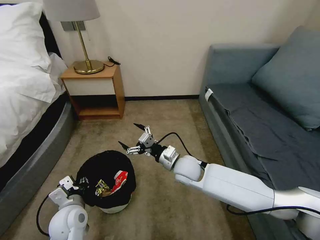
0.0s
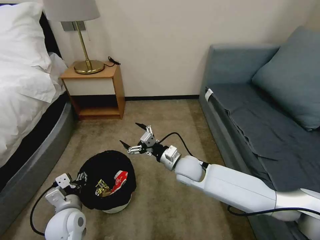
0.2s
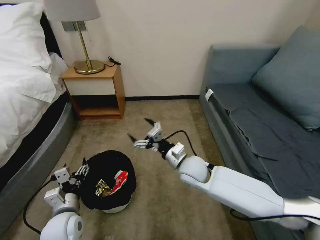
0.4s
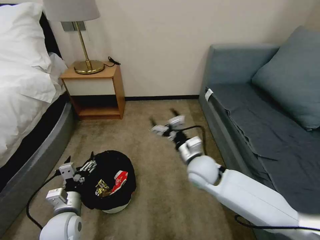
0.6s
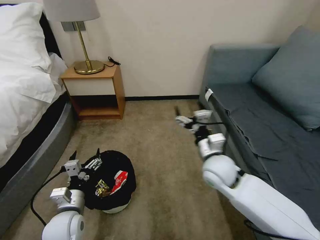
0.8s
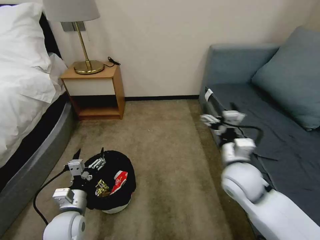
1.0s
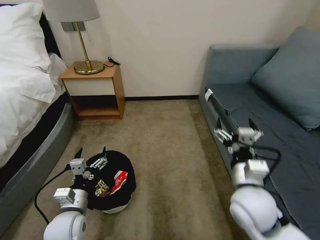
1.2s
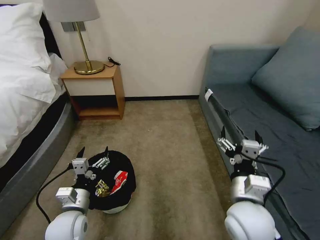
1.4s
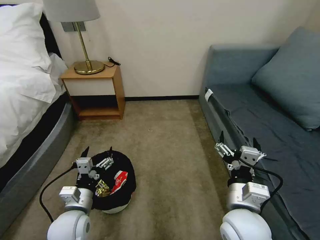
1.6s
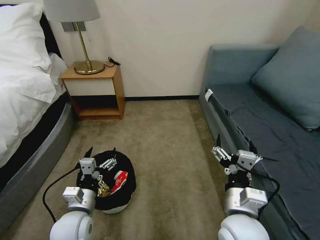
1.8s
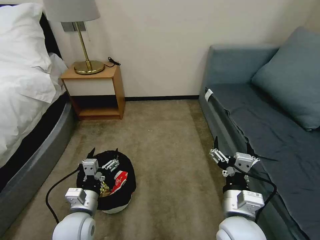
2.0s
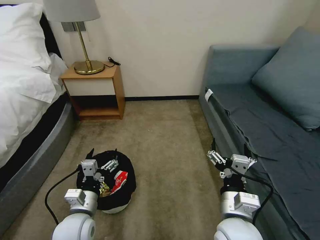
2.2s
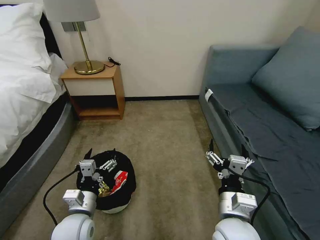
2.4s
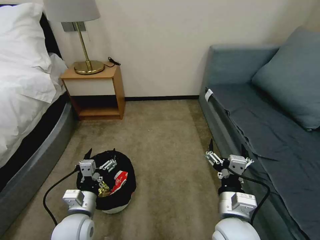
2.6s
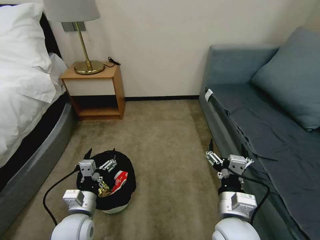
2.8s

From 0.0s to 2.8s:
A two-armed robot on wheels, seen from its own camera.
Task of the whole recording: Pick up the trash bin, then pick up the garbage on the floor and place it into the trash bin.
From 0.0s to 1.4s: The left gripper opens up; the right gripper goes approximately 20 cm backward, to the right and upward.
From 1.4s to 2.8s: There are only small adjustments of the grippers.

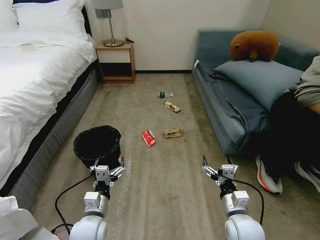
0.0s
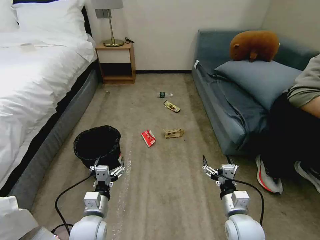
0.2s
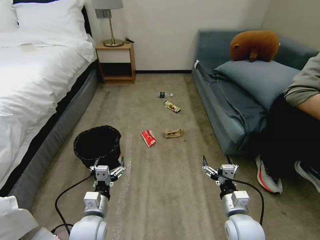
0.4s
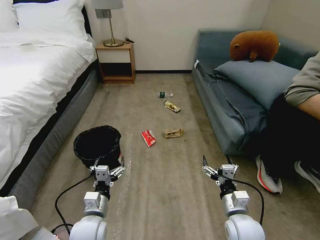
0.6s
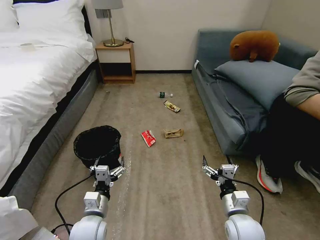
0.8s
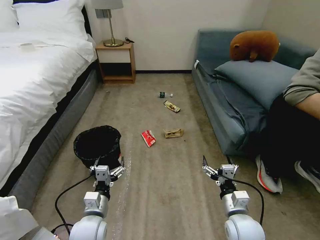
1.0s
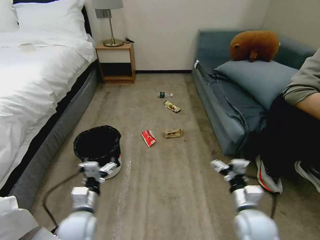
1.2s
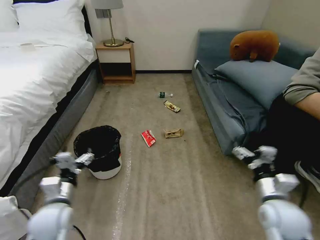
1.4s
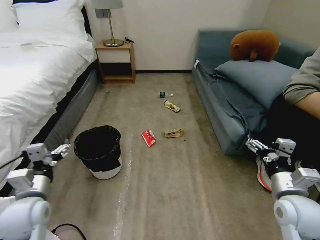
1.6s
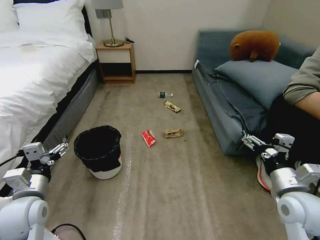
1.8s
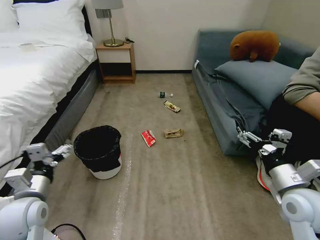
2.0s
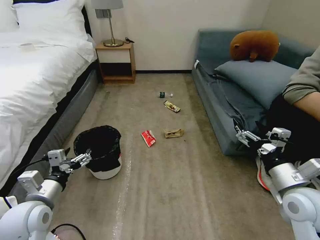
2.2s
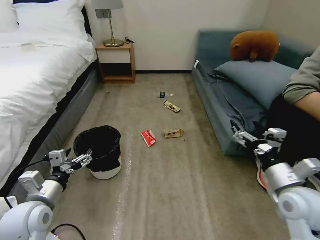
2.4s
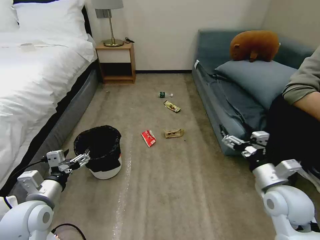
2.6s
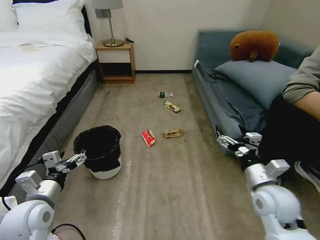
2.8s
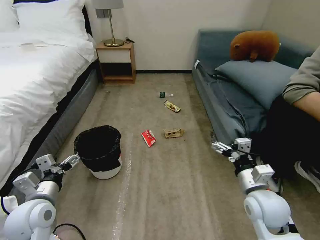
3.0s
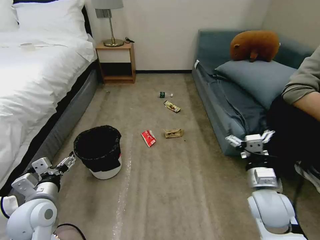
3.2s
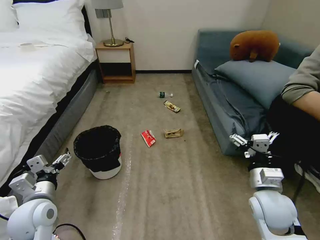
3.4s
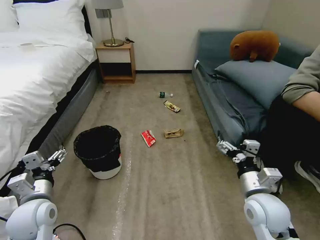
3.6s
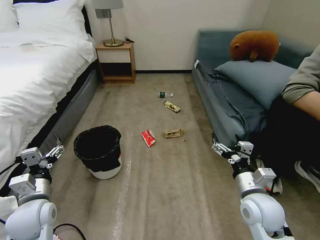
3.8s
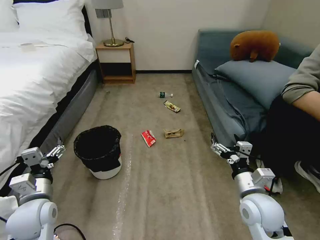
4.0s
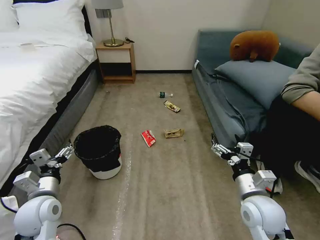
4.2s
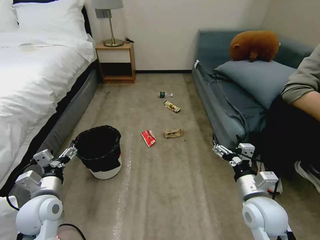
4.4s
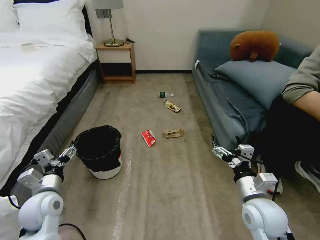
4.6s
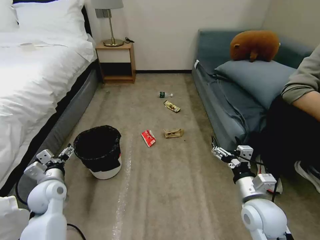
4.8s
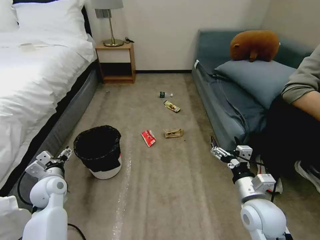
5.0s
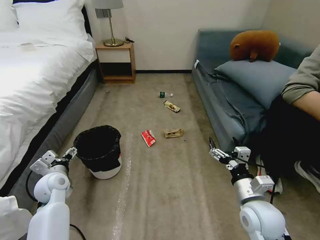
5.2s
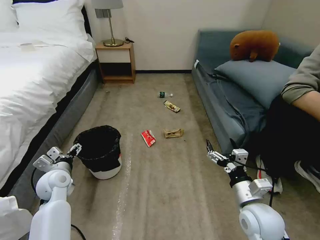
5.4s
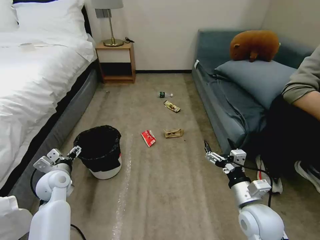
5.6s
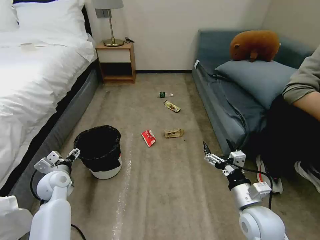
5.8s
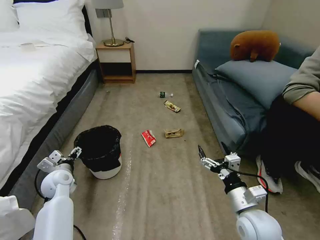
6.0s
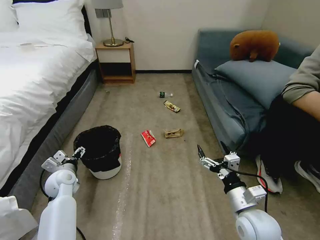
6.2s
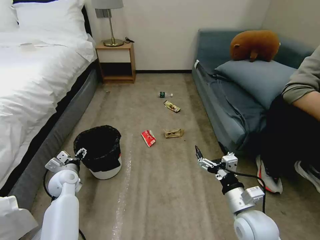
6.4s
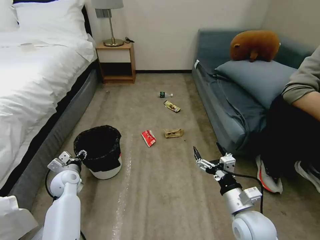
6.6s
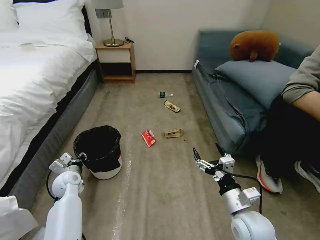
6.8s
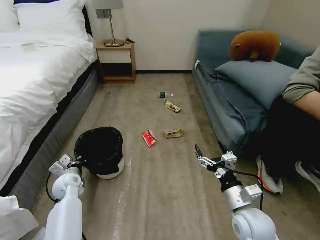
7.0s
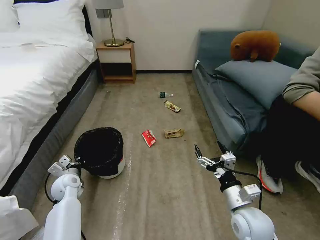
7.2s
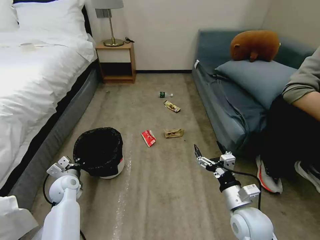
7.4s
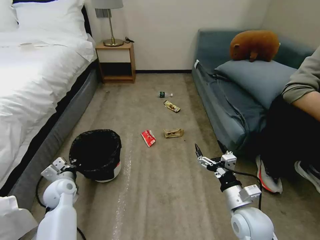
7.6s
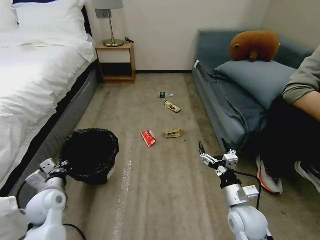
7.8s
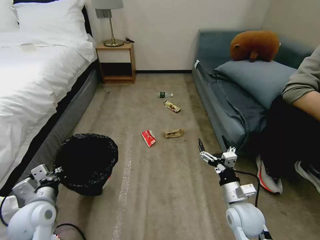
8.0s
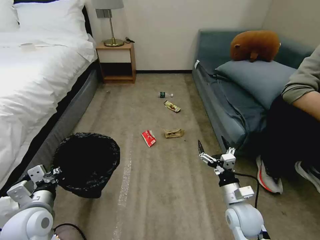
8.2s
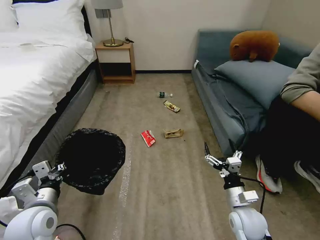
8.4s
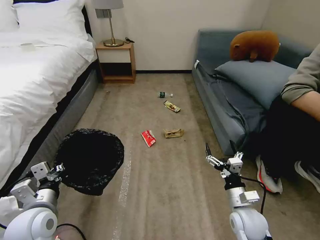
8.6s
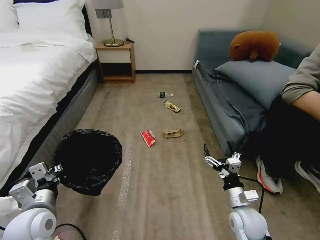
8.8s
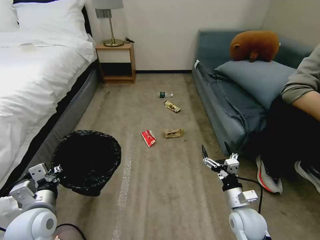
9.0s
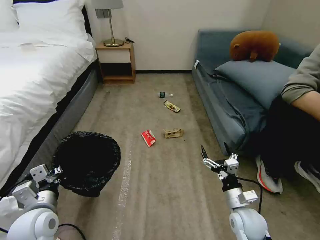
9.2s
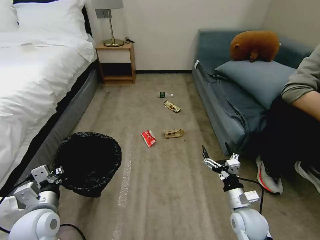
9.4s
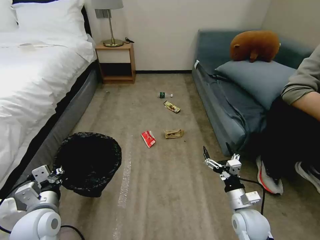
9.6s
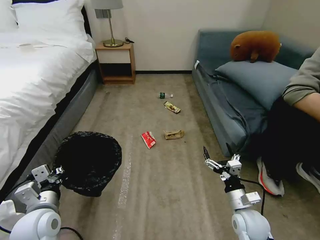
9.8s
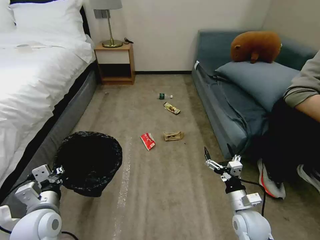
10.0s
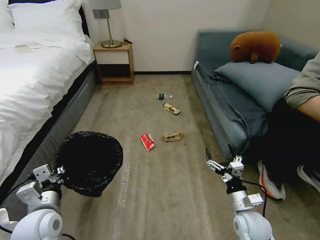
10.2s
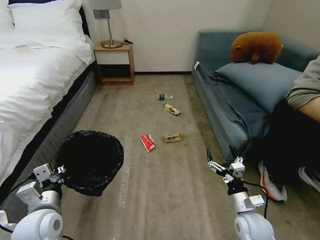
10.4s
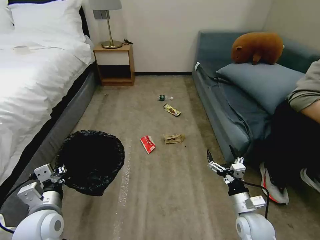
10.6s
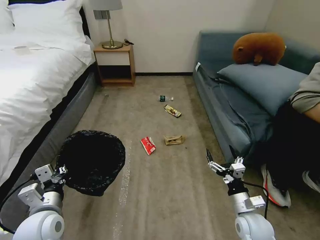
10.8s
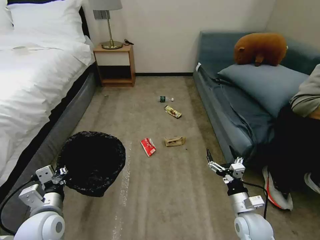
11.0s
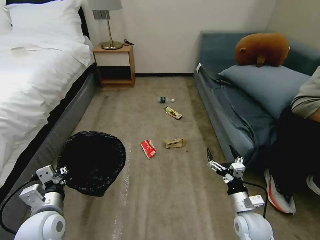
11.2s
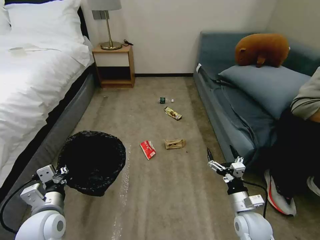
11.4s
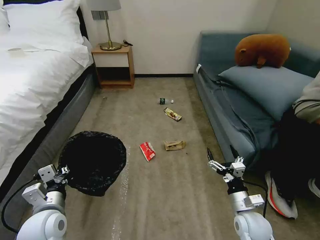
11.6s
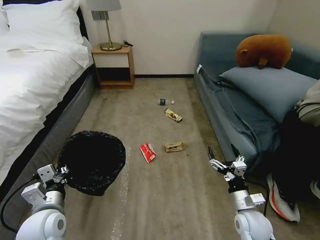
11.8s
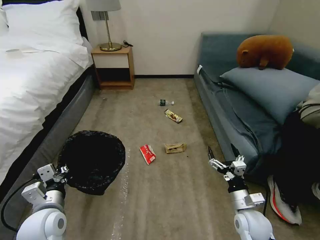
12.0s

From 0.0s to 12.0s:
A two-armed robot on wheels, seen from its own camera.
Task of the whole recording: Pick up the trash bin, then pick up the garbage on the floor and place it into the trash bin.
From 1.6s to 3.0s: The right gripper travels to the left by approximately 5 cm.
From 4.4s to 6.0s: The left gripper moves forward and downward, some 15 cm.
From 6.0s to 7.6s: The left gripper closes its fingers.
From 7.6s to 9.0s: The left gripper travels backward and upward by some 15 cm, while the right gripper goes some 5 cm downward.
From 9.0s to 10.4s: There are only small adjustments of the grippers.
From 10.4s to 12.0s: Both grippers stay about where they are.

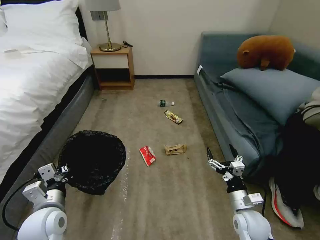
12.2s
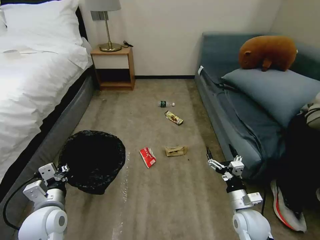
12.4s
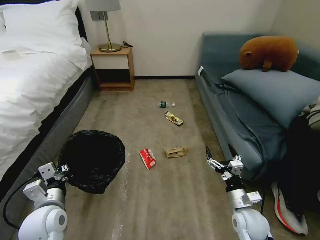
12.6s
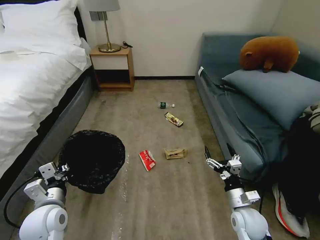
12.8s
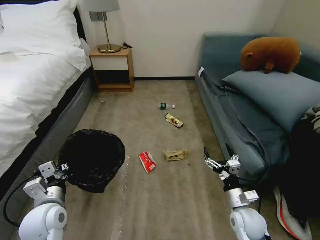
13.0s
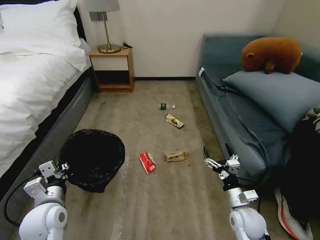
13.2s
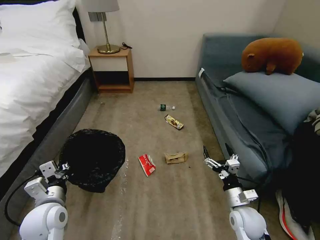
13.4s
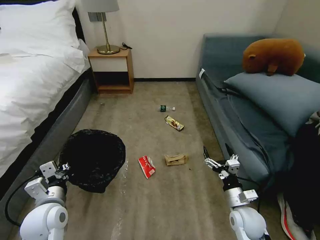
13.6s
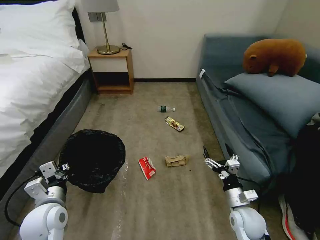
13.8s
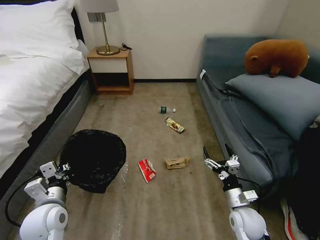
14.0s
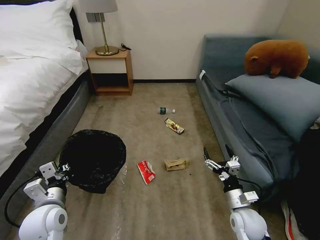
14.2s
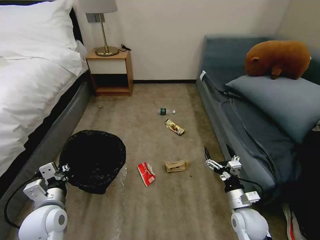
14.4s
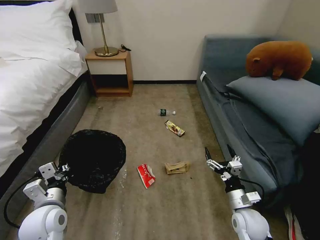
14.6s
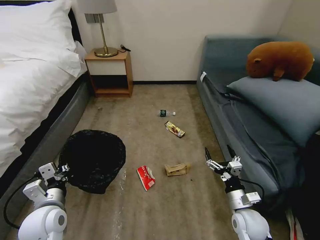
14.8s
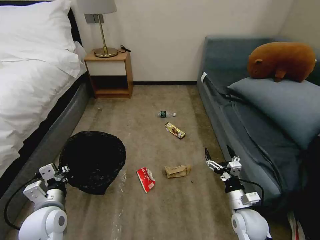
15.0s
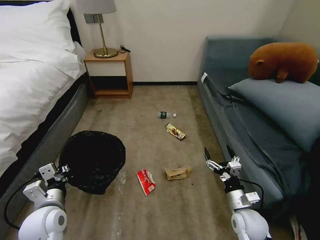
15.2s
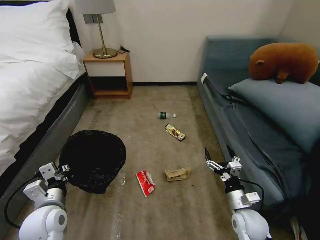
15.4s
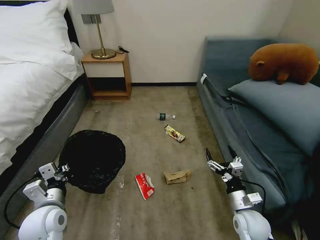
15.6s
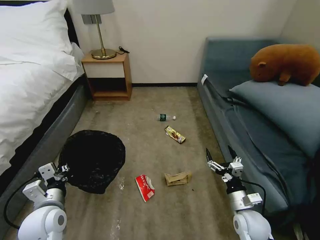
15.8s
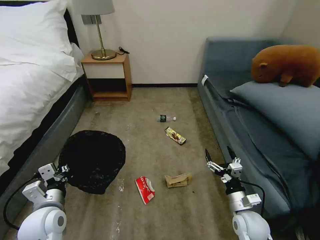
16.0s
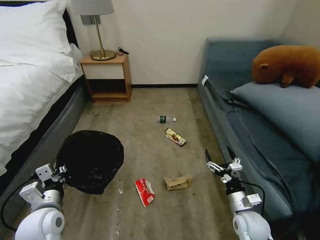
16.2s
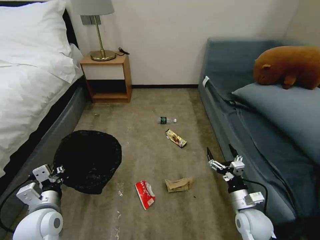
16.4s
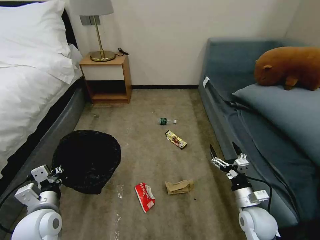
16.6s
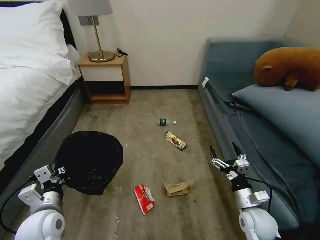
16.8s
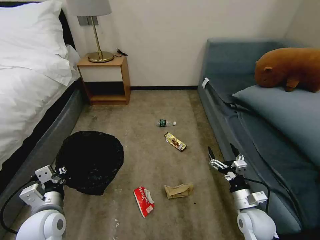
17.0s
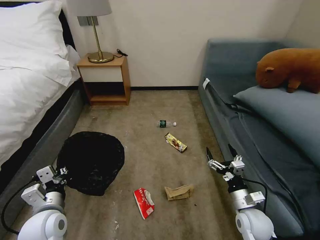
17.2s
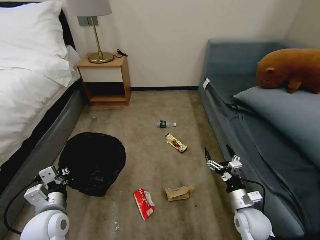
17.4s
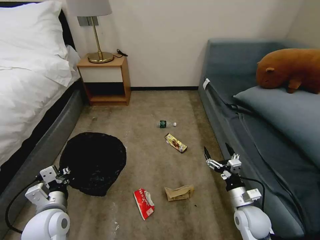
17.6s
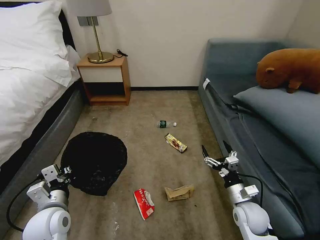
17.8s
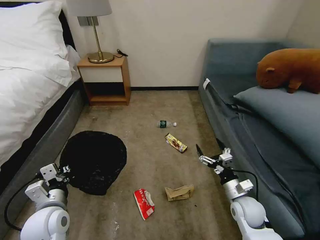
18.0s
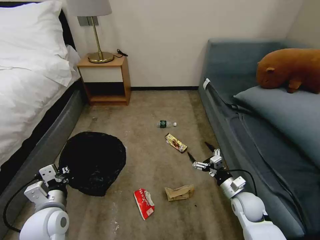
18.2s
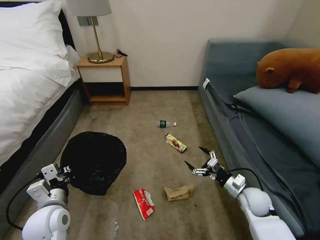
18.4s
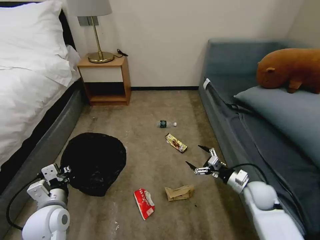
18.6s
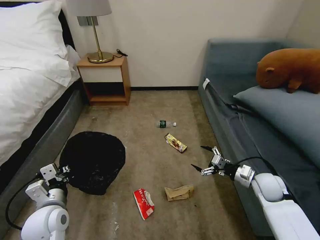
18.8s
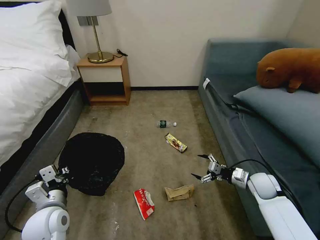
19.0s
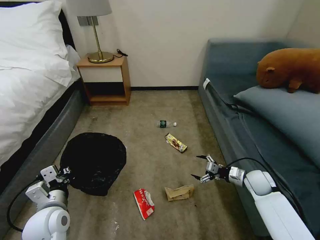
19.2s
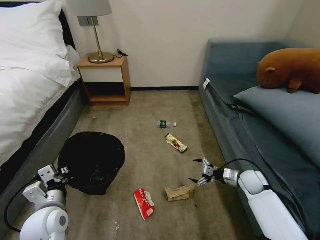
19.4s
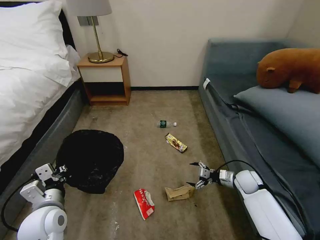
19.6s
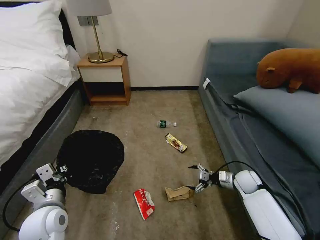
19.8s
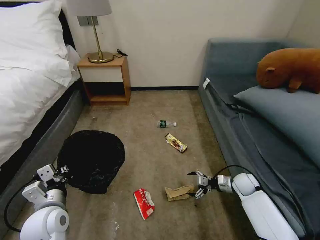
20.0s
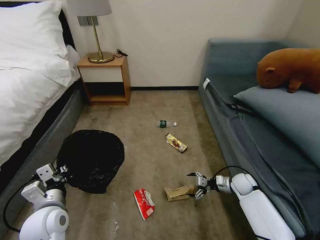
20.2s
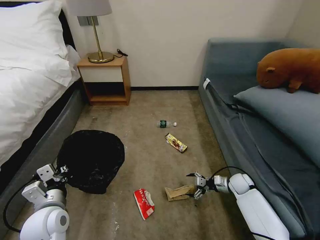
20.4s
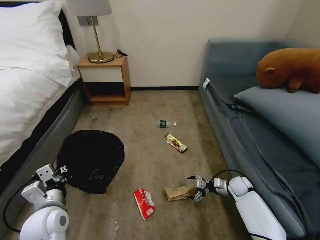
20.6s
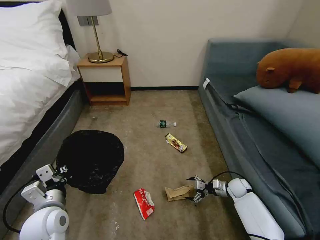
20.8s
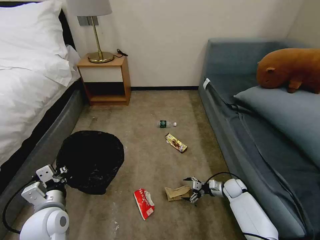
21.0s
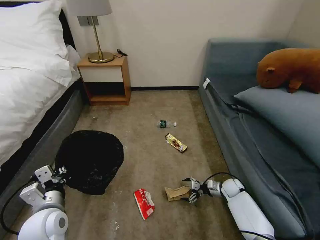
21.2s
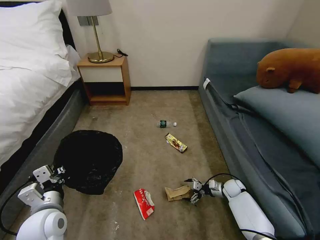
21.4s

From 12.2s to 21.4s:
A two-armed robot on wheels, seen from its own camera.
Task of the whole recording: Pick up the trash bin, then pick up the garbage on the floor and place it into the trash bin.
From 12.2s to 15.2s: Neither gripper changes place.
From 16.8s to 18.4s: The right gripper goes some 5 cm forward.
From 18.4s to 19.8s: The right gripper moves forward, some 10 cm.
From 19.8s to 21.4s: The right gripper heads downward, covering roughly 10 cm.
